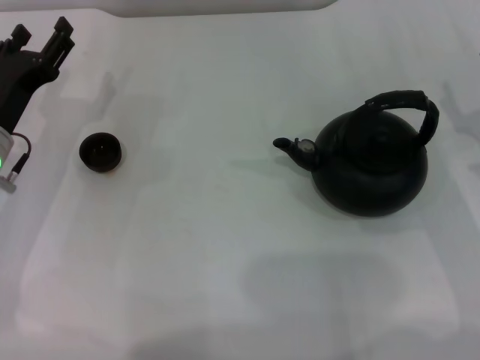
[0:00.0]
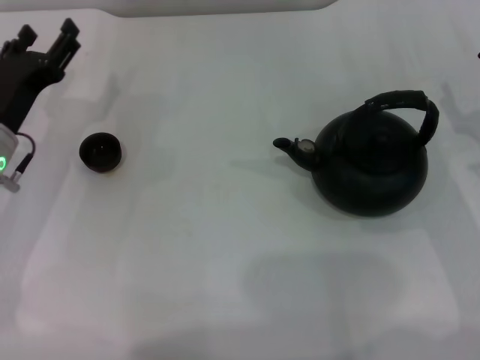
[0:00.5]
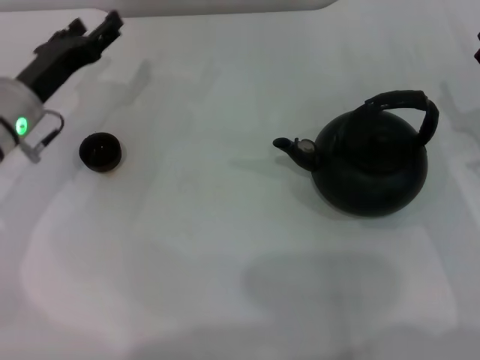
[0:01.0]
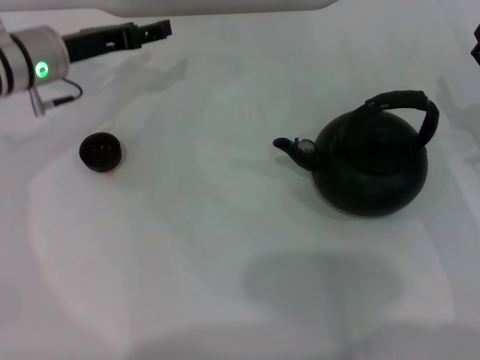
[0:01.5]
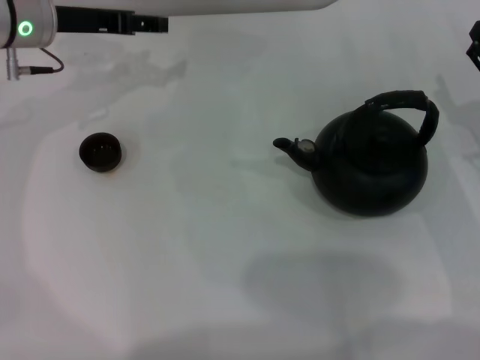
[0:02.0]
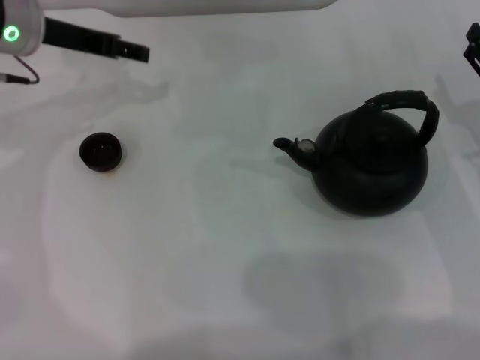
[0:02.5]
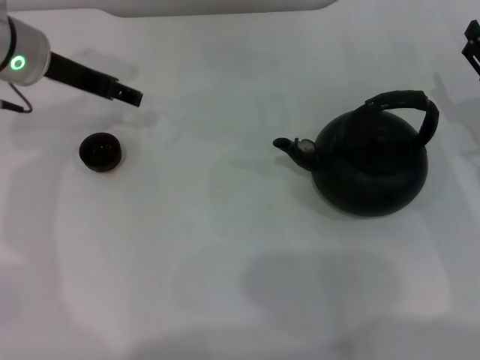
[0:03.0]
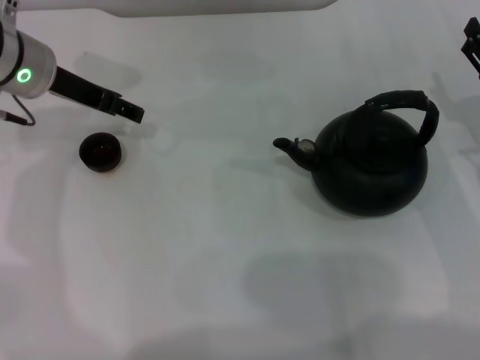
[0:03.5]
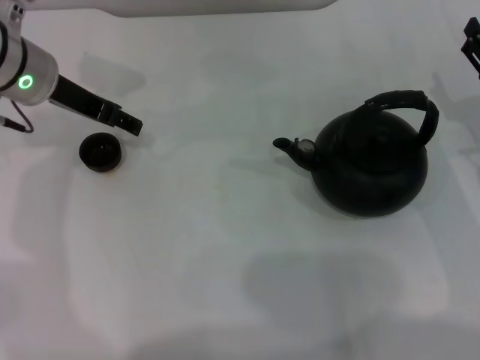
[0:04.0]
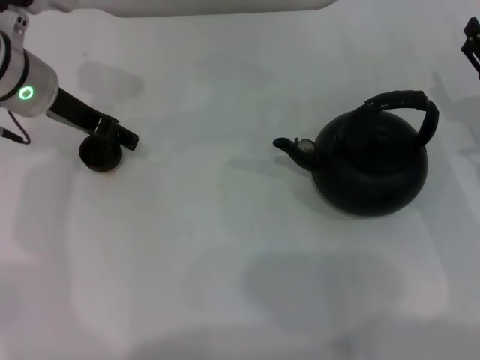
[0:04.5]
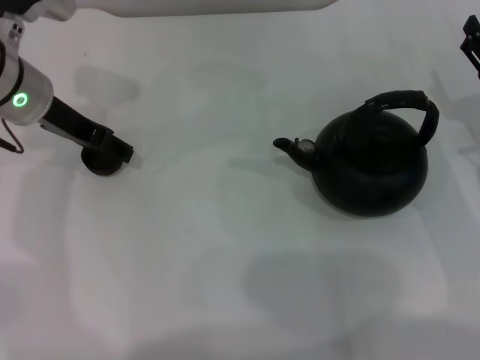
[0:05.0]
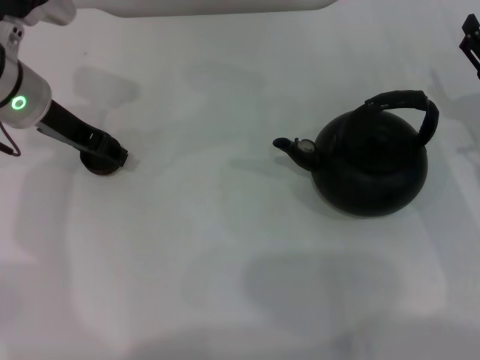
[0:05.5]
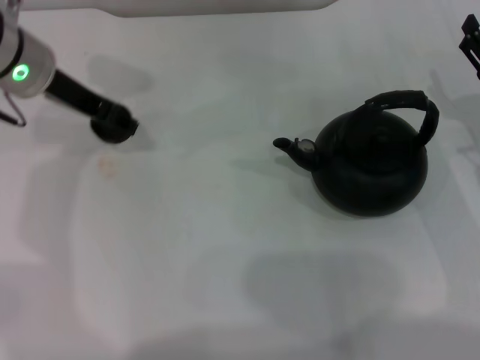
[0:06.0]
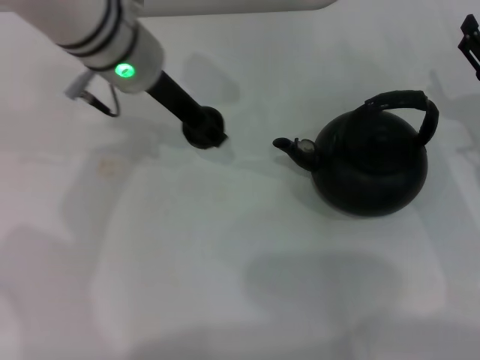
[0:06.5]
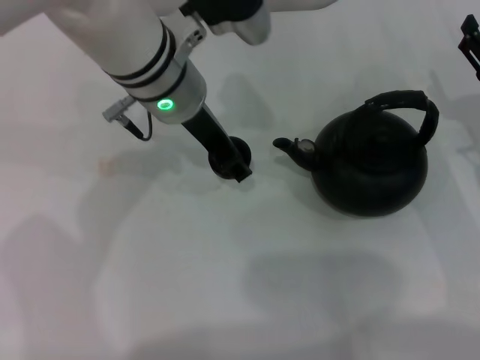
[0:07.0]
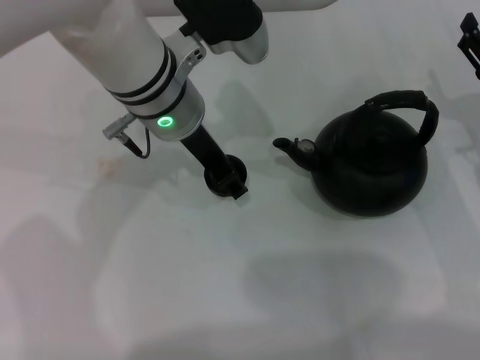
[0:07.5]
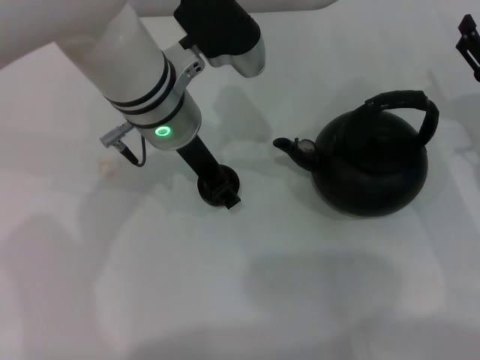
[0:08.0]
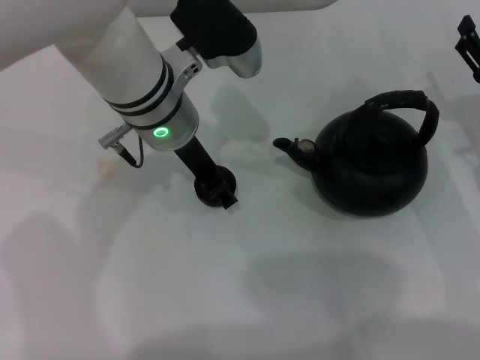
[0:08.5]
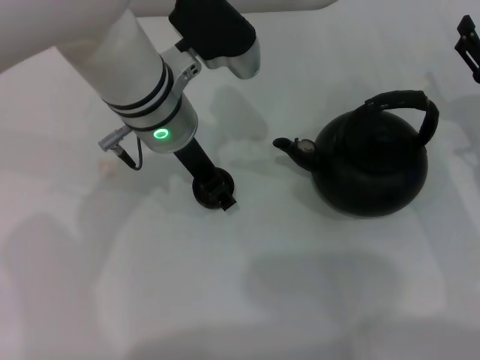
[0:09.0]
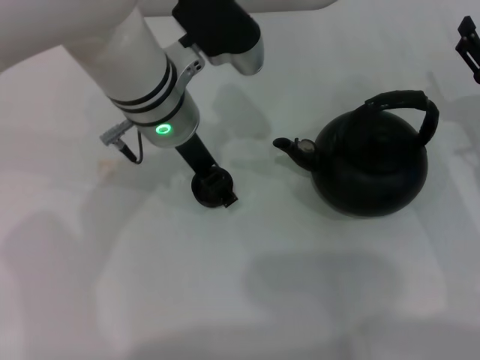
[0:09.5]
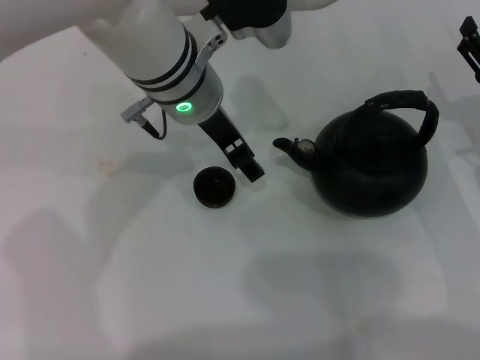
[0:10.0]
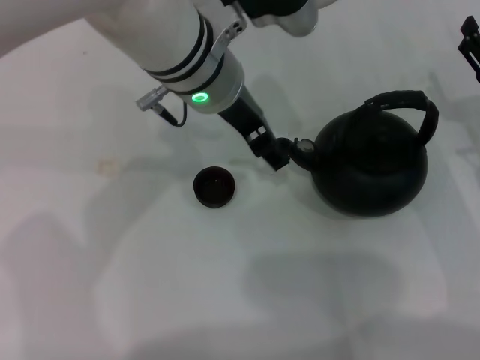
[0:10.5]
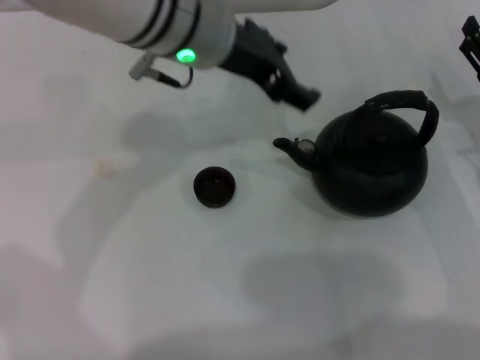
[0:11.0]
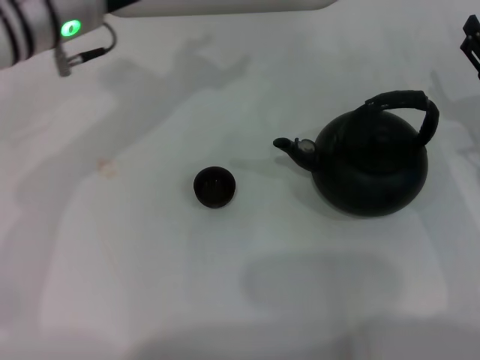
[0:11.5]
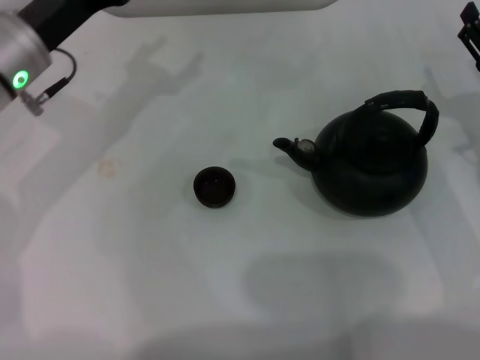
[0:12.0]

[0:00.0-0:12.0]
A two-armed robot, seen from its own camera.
Task of the whole recording: Grasp the handle of the teapot with one hand and pour tea into the teacup.
Step, 0:00.0 to 0:05.5: Pick up the teacup with the left gripper.
Step, 0:06.0 to 0:10.0: Place the teacup in the center of view with the left gripper.
0:00.0 to 0:02.0: The left gripper is displaced forward and upward by about 15 cm.
0:04.0 to 0:06.0: The left gripper closes up.
0:06.0 to 0:08.0: The left gripper shifts roughly 15 cm to the right.
0:08.0 to 0:10.0: The left gripper opens up.
0:10.0 to 0:12.0: The left gripper travels to the left by roughly 15 cm.

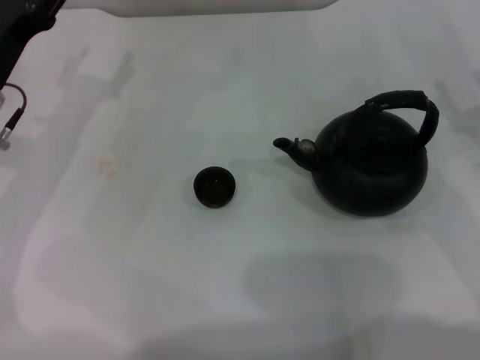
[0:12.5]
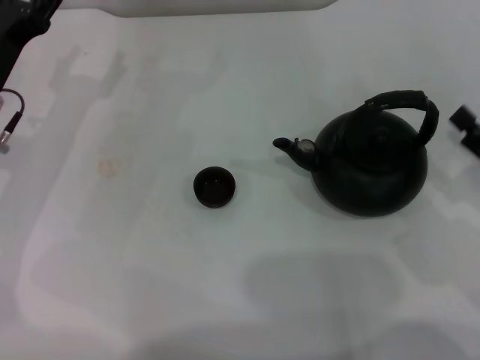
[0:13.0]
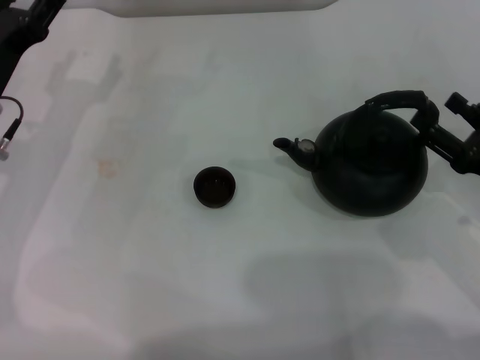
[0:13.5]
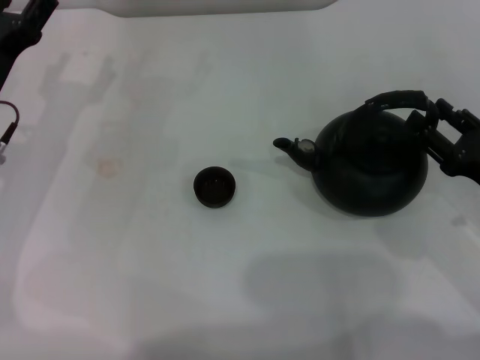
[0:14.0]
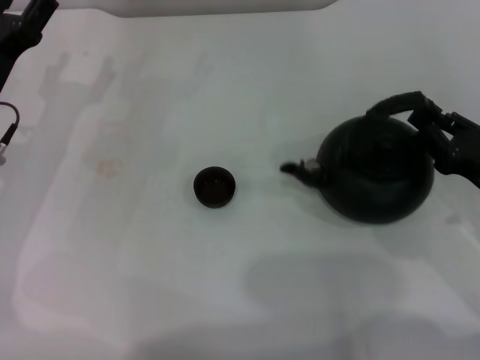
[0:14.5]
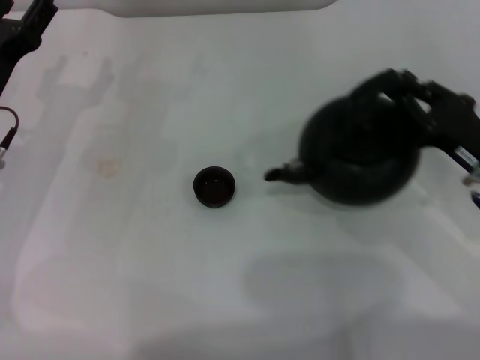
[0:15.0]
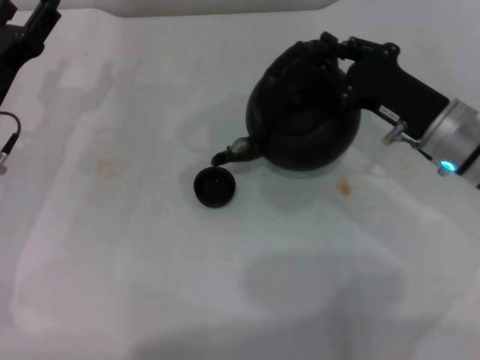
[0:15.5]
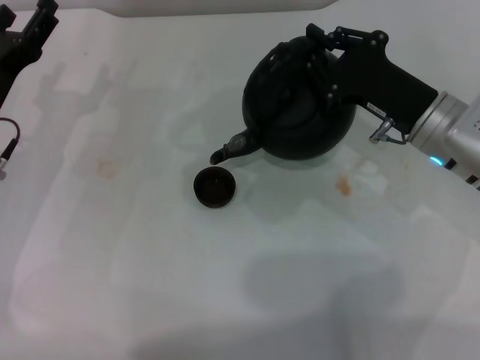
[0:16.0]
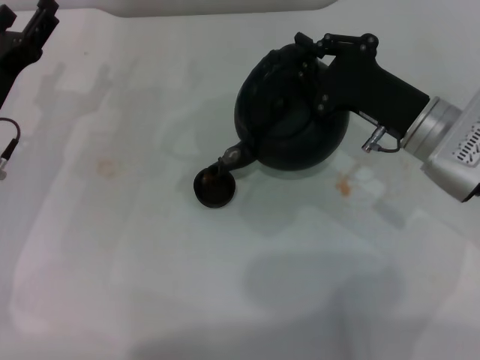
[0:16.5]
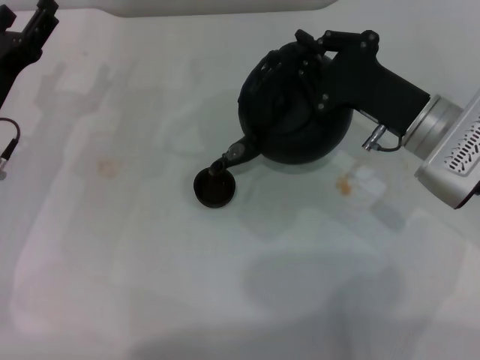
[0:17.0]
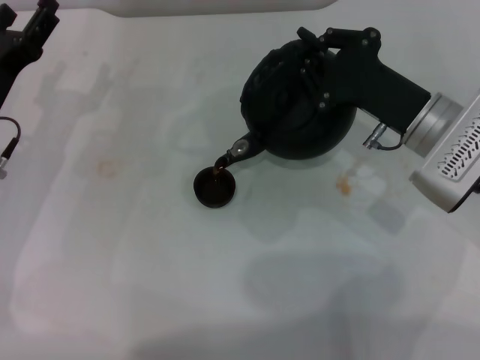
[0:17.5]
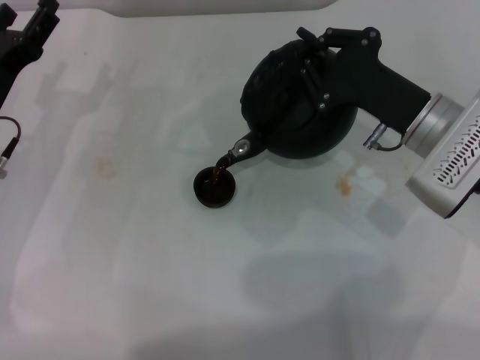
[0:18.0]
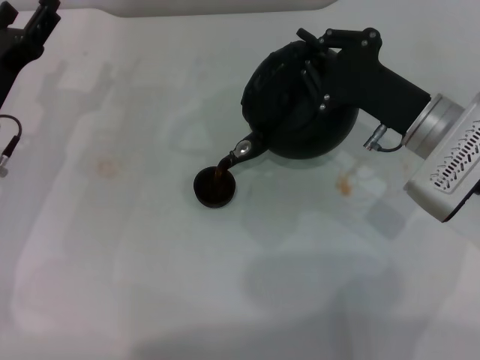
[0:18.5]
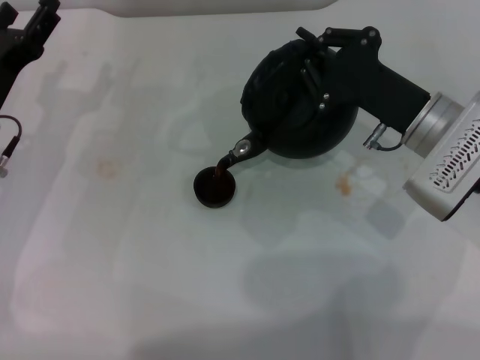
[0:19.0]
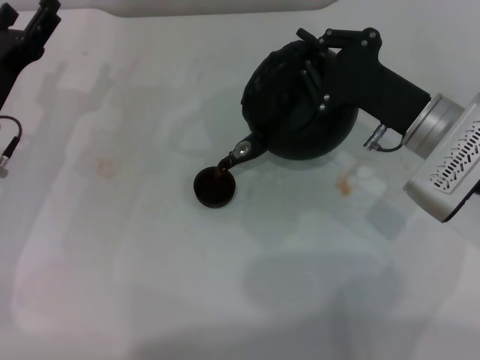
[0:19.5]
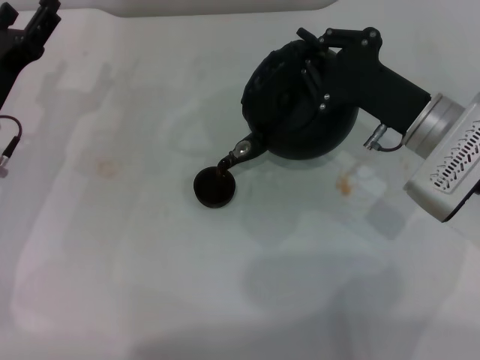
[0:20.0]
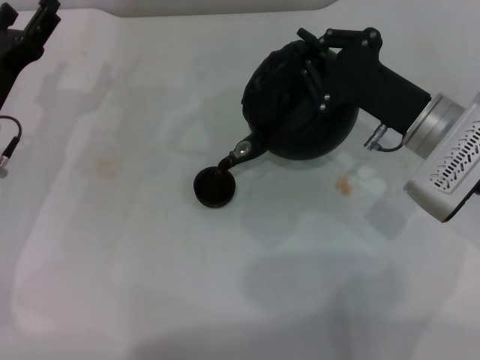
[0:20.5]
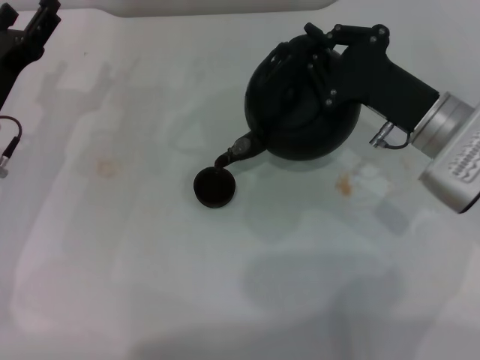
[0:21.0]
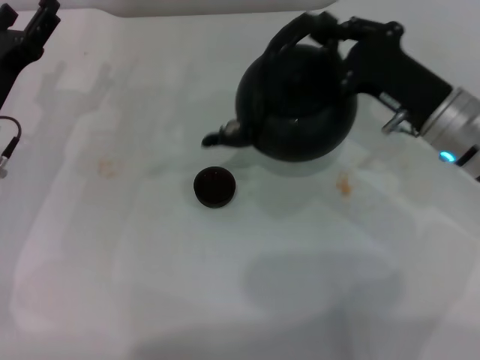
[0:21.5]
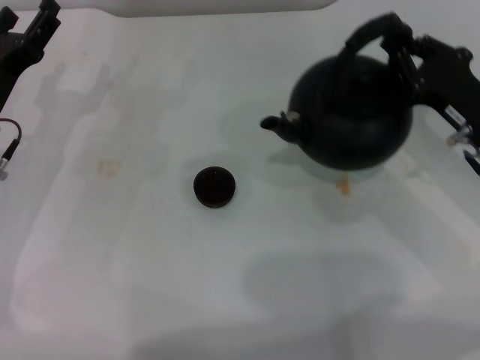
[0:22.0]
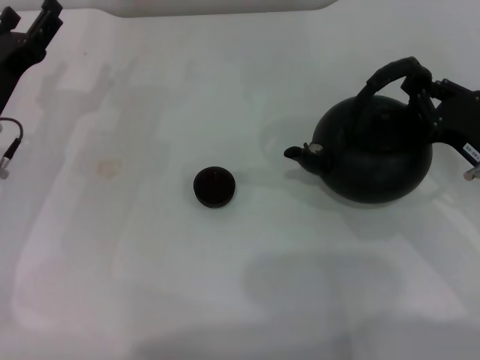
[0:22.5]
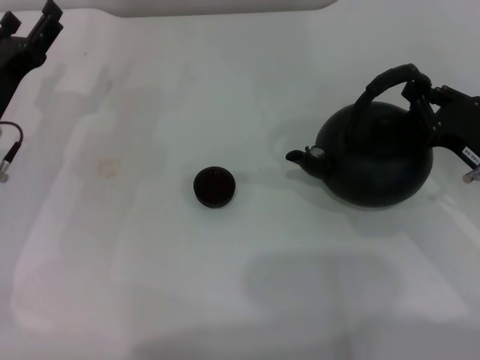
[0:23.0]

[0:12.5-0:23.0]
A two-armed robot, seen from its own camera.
Task of the whole recording: Grasp the handle of the teapot with one hand and pour tea into the teacup.
Step, 0:12.5 to 0:15.0: Pick up the teapot with the right gripper.
Step, 0:15.5 to 0:21.5: Pour tea into the teacup with the right gripper.
0:12.5 to 0:14.5: The right gripper ends up some 5 cm from where it was, and closes.
0:14.5 to 0:16.5: The right gripper shifts about 15 cm to the left and forward.
0:16.5 to 0:21.0: The grippers move only a little.
0:21.0 to 0:23.0: The right gripper goes some 10 cm to the right and backward.

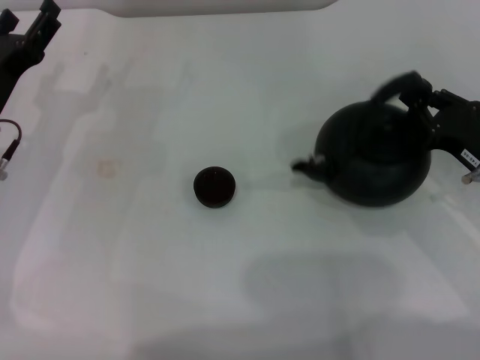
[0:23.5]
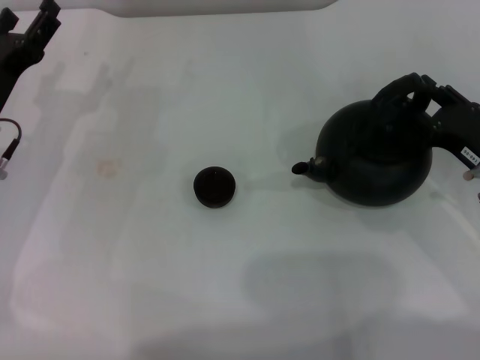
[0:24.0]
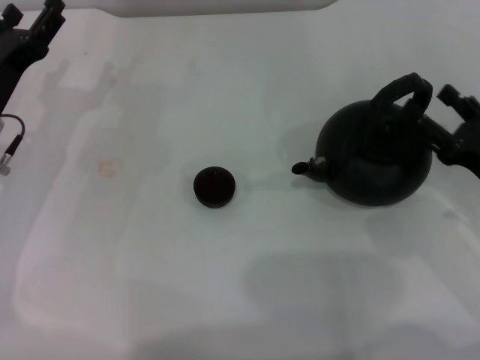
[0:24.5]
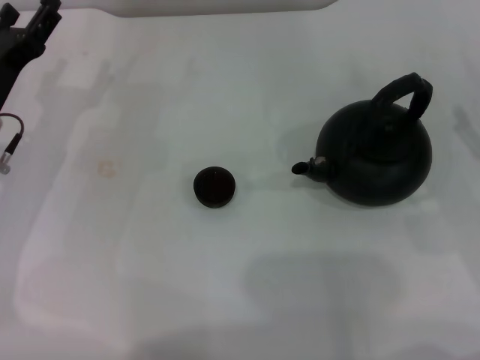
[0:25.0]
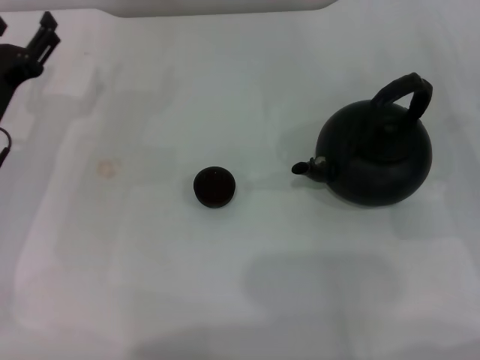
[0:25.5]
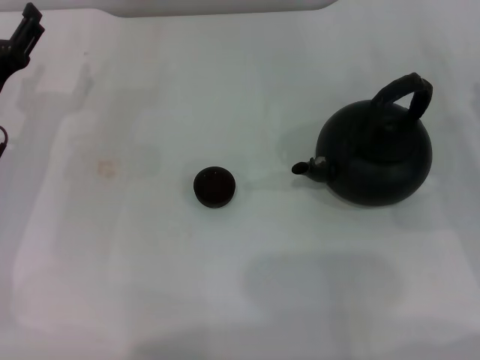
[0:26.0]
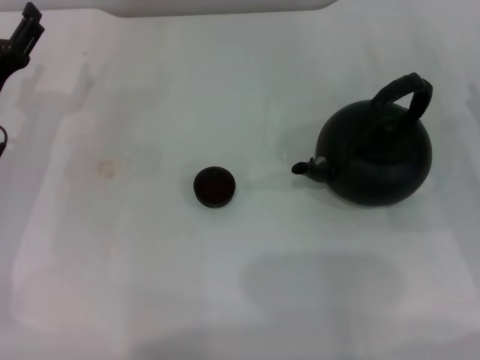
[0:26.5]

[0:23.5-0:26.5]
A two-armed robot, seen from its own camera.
Task of the whole recording: Grasp the handle of the teapot with one hand and pour tea into the teacup.
0:23.5 to 0:25.0: The right gripper moves to the right, roughly 5 cm, and opens.
